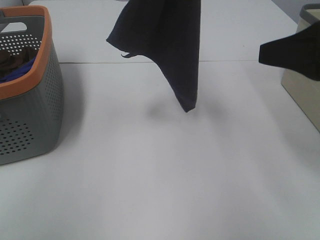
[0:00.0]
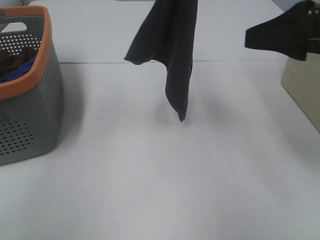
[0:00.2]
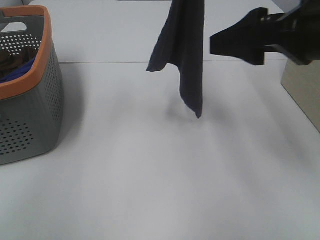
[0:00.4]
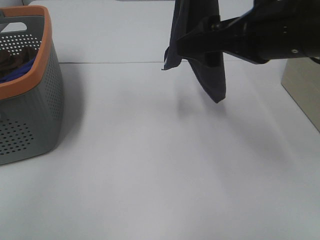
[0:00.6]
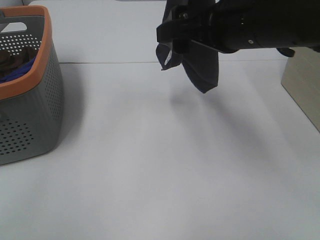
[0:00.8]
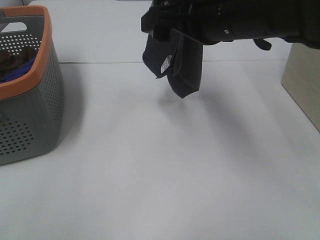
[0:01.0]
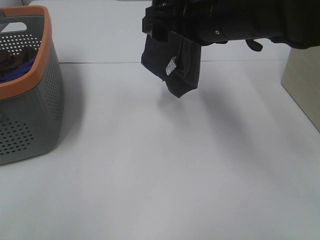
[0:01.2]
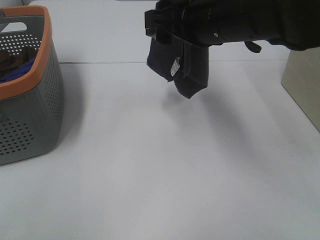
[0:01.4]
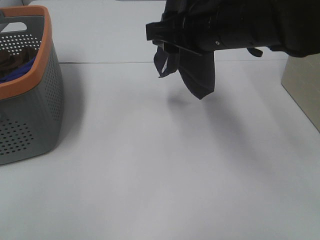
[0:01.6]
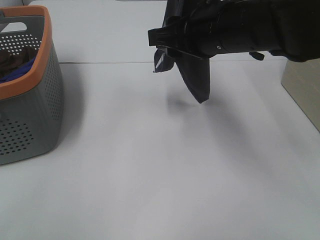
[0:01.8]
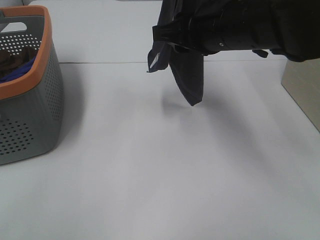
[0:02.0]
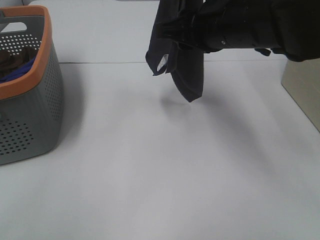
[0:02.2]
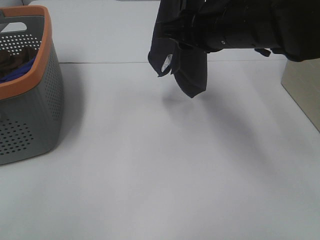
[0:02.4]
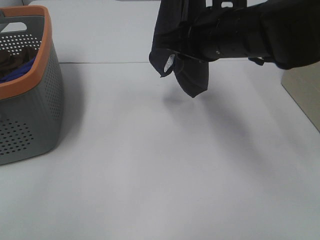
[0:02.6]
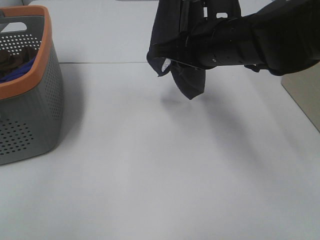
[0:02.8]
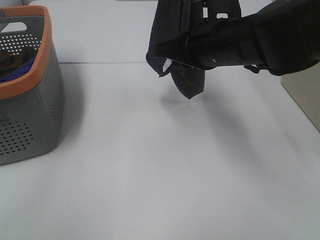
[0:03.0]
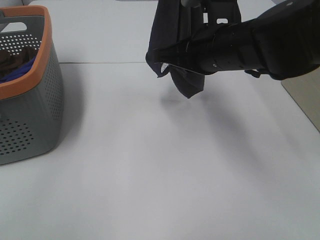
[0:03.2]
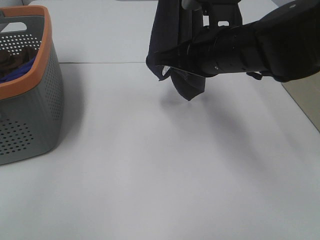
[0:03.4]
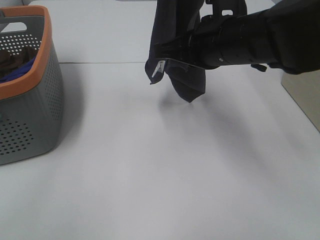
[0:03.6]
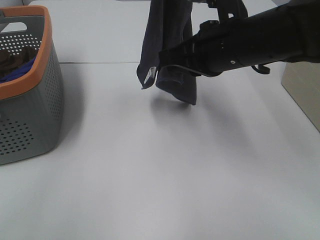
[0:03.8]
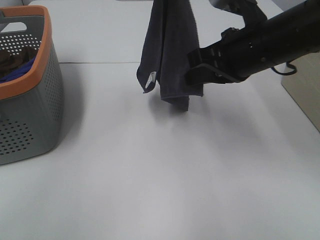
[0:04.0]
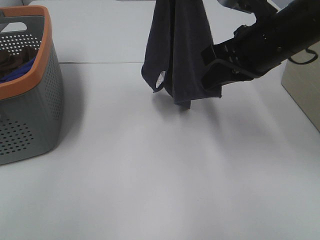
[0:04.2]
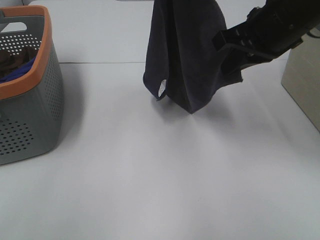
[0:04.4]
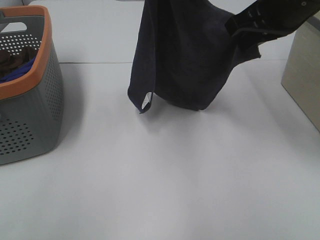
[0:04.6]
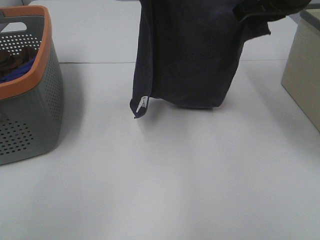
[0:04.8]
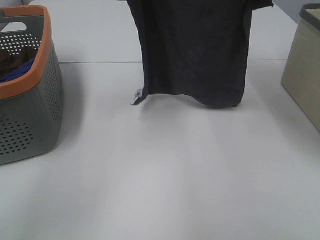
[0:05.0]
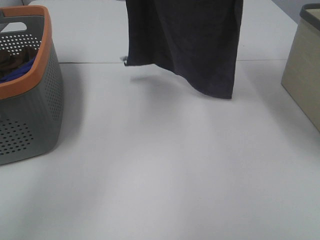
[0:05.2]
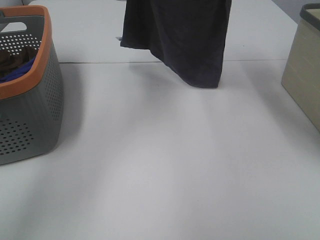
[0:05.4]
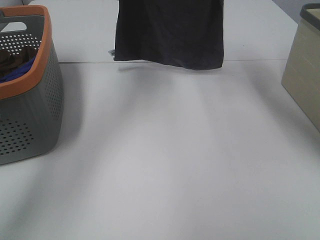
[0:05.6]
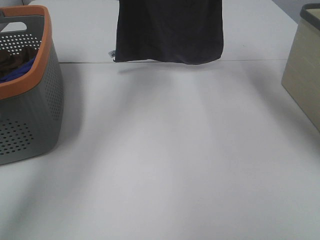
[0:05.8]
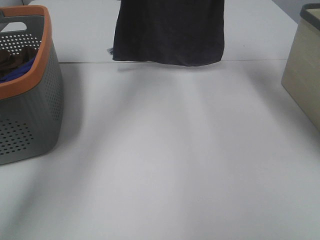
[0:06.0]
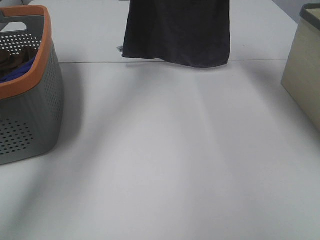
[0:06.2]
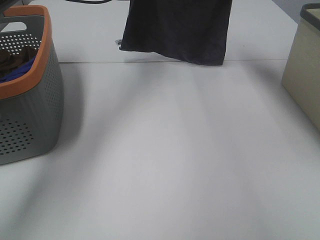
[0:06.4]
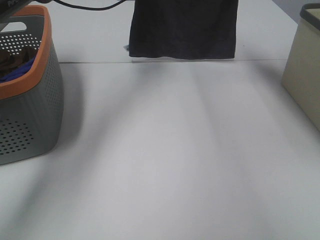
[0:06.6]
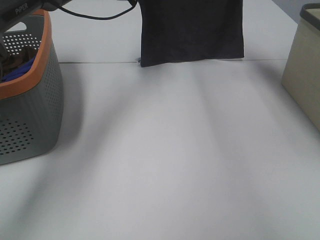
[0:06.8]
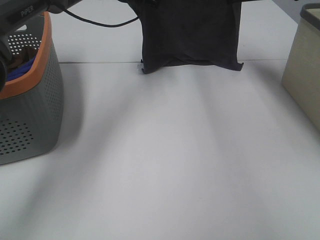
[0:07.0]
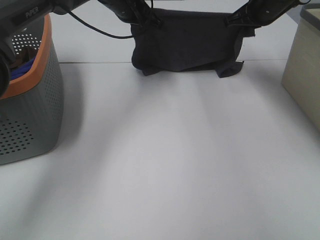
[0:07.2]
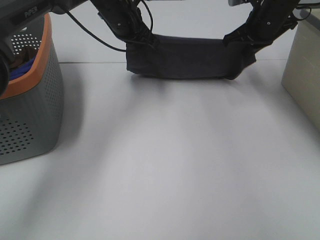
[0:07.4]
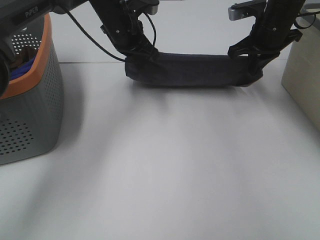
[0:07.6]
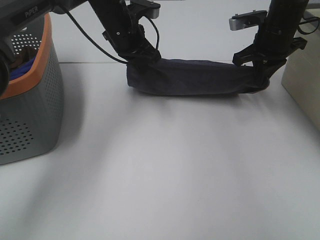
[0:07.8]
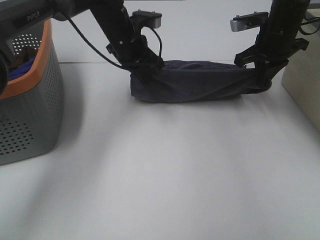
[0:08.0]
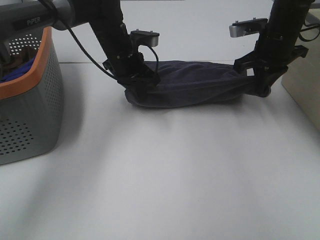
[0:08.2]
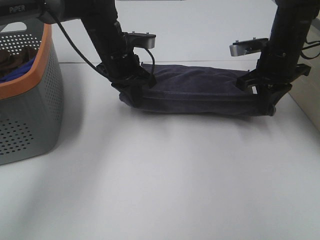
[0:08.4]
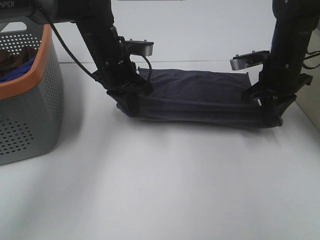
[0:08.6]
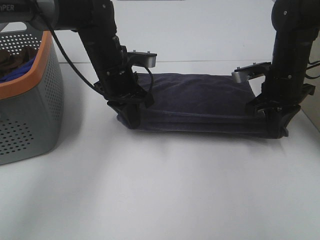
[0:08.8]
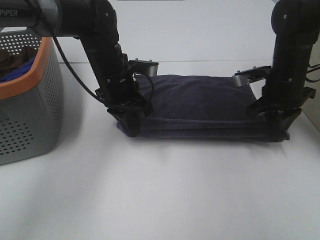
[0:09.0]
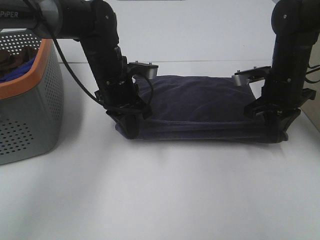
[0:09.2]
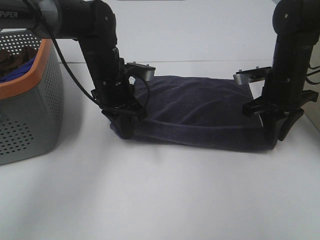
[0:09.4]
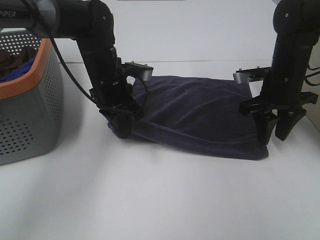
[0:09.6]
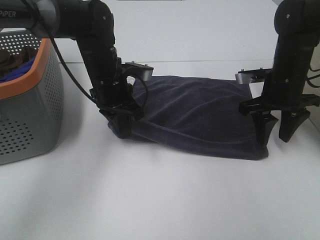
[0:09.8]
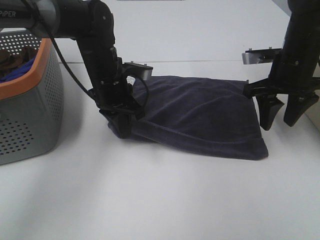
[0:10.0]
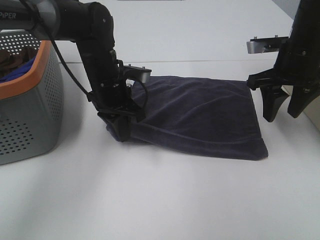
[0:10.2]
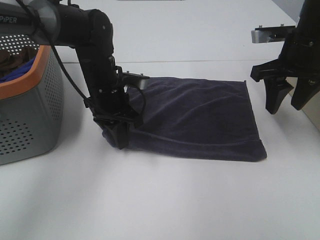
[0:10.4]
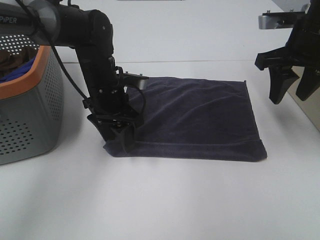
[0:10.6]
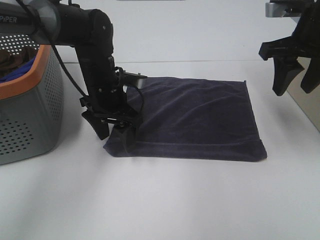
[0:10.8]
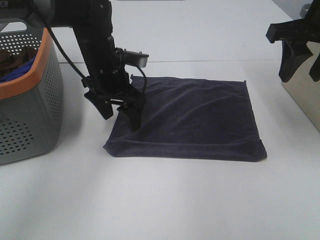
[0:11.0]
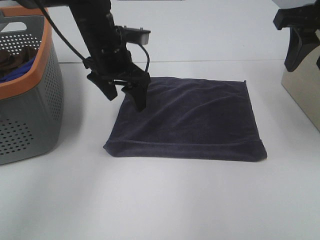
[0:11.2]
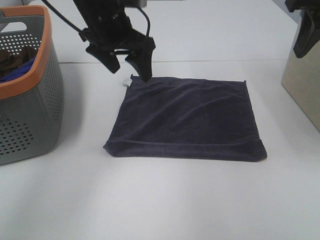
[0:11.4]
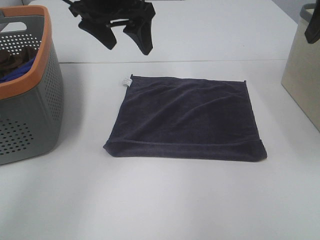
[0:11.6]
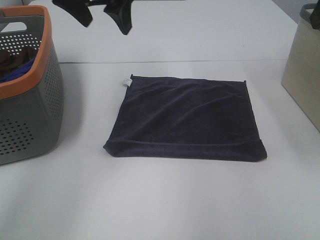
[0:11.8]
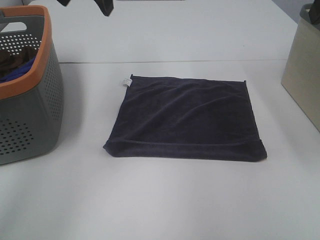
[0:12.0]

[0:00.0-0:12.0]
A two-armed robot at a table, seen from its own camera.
Task of the whole recording: Remove the towel and place it.
Step, 0.0 to 2.2 s: Right hand: grab a corner of the grey towel and straighten it.
Step, 2.4 to 5.4 s: Right hand: spread the grey towel flat on the table.
Step, 2.4 to 6.0 s: Left hand: spread the grey towel flat on the table.
0.0 to 1.6 s: The right gripper moves to the left and forward, about 20 cm, and closes up.
1.6 to 3.0 s: The right gripper closes up.
3.0 to 4.4 s: The right gripper moves to the right, about 5 cm.
4.4 to 6.0 s: The right gripper shifts roughly 15 cm forward. Meanwhile the left gripper is displaced forward, downward and to the left by approximately 20 cm.
6.0 to 7.6 s: Both grippers move downward, some 10 cm.
7.6 to 9.0 s: Both grippers travel together backward and downward, roughly 10 cm.
9.0 to 10.4 s: The right gripper moves upward, about 10 cm, and opens its fingers.
10.4 to 12.0 s: The right gripper travels upward and backward by some 20 cm, and opens. Meanwhile the left gripper moves upward, roughly 25 cm, and opens up.

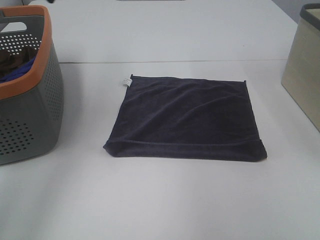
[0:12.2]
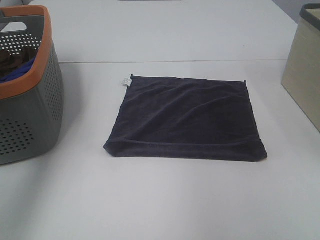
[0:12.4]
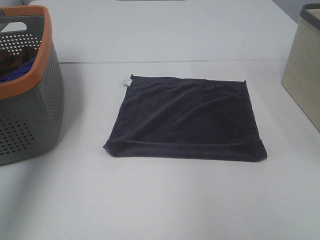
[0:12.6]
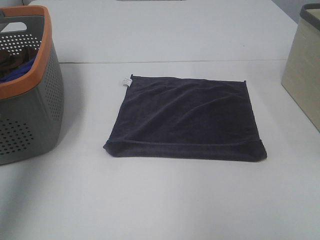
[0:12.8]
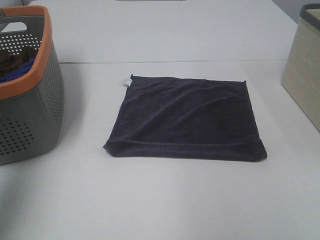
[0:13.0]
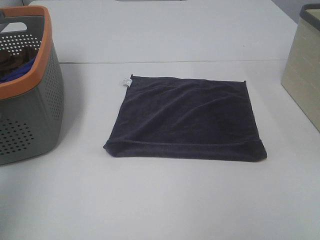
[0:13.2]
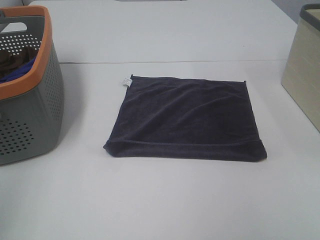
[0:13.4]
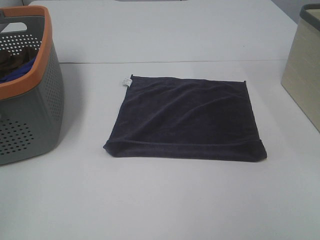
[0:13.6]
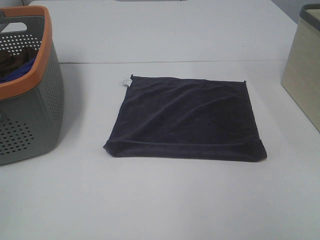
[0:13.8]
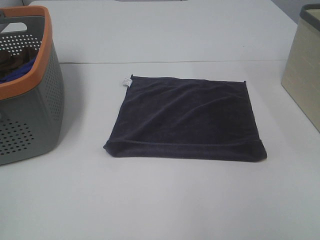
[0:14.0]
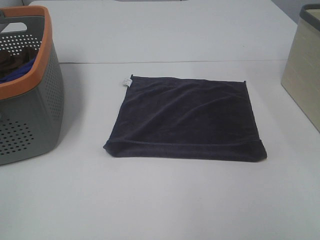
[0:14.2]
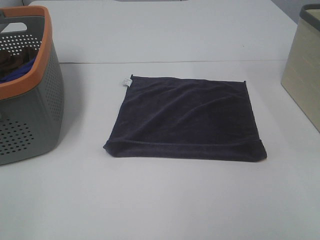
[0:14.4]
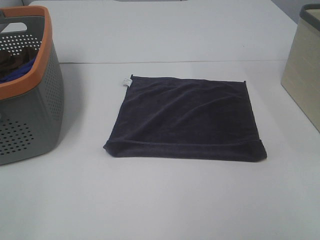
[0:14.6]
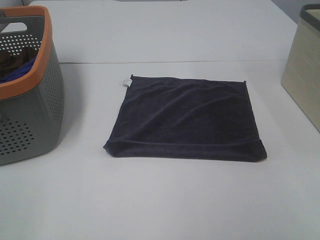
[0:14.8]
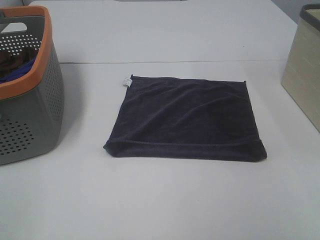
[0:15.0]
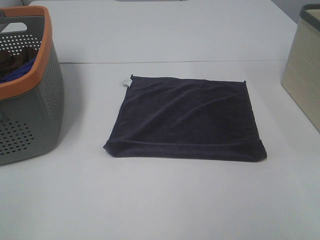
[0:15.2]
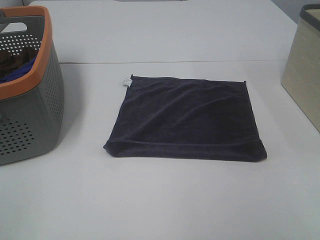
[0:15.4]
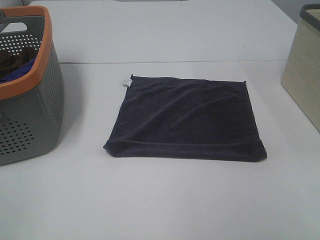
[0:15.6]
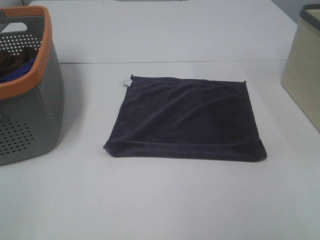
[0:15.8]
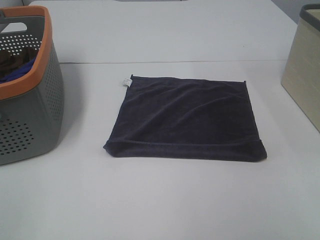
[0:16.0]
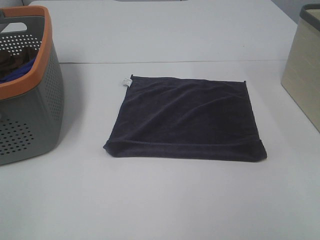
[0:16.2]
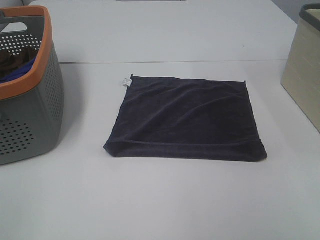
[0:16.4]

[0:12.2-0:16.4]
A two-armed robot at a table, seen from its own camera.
Task of the whole recording: Remove the towel and place it.
12.2 to 13.6 s: The left gripper shifts some 35 cm backward.

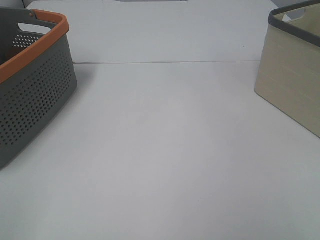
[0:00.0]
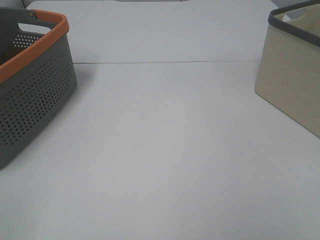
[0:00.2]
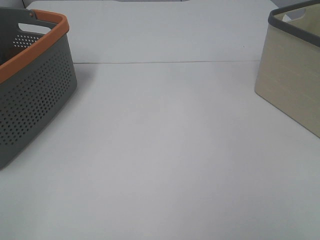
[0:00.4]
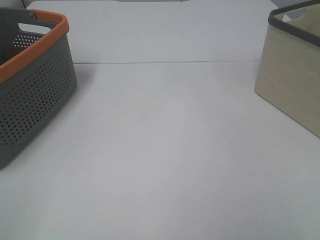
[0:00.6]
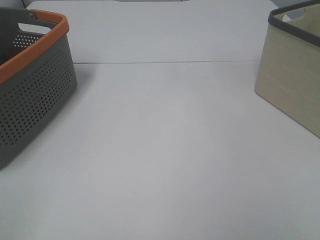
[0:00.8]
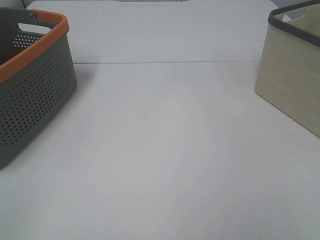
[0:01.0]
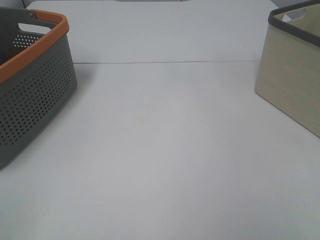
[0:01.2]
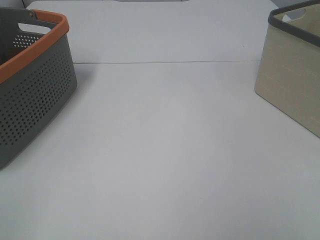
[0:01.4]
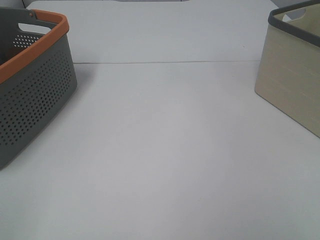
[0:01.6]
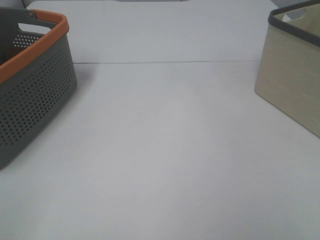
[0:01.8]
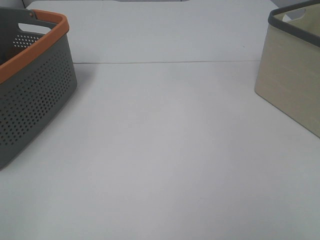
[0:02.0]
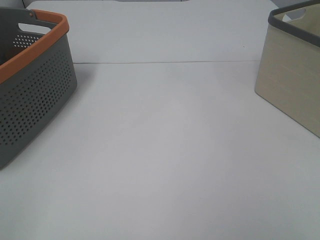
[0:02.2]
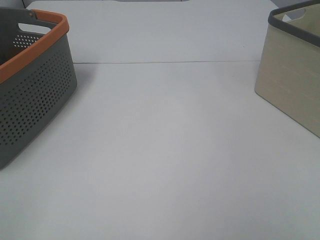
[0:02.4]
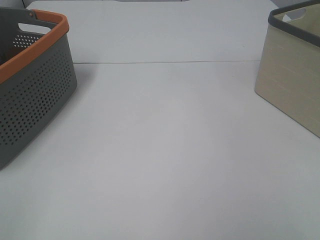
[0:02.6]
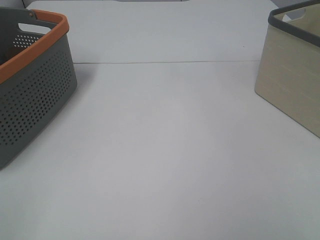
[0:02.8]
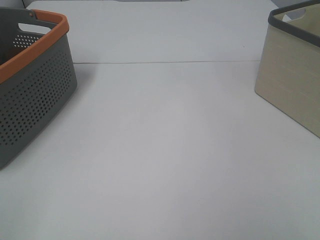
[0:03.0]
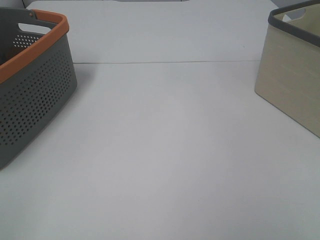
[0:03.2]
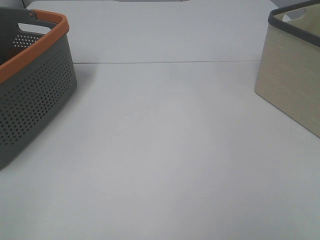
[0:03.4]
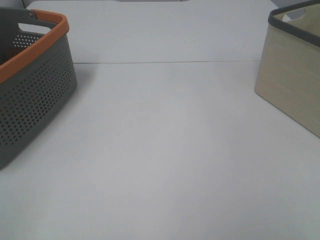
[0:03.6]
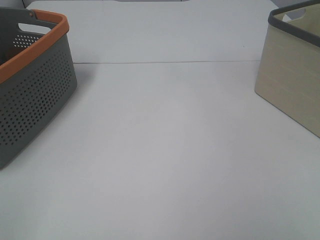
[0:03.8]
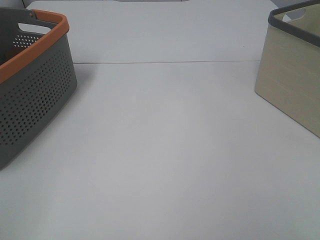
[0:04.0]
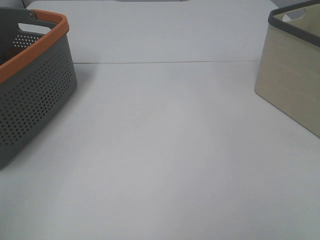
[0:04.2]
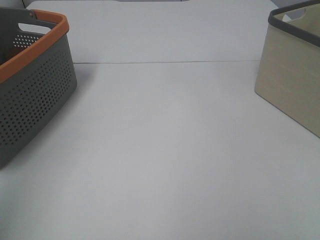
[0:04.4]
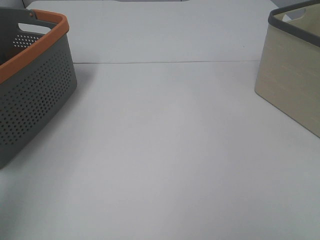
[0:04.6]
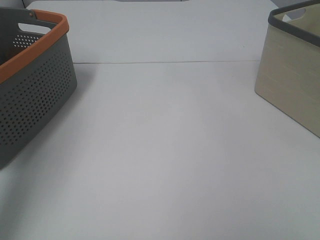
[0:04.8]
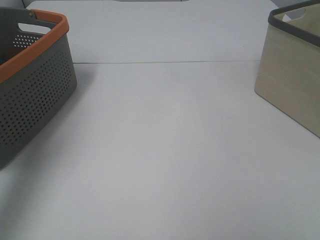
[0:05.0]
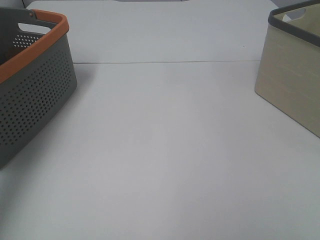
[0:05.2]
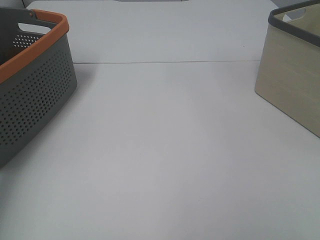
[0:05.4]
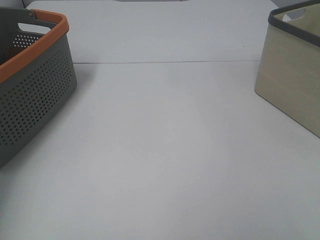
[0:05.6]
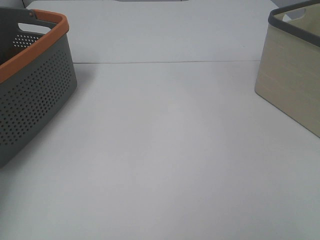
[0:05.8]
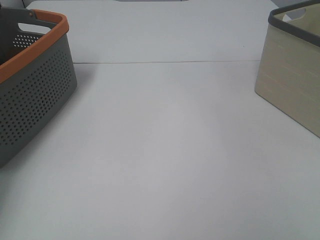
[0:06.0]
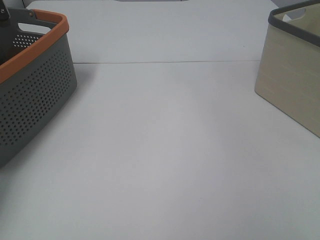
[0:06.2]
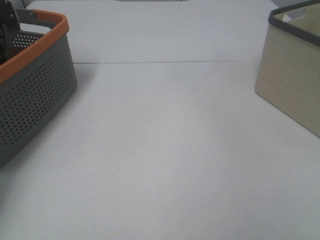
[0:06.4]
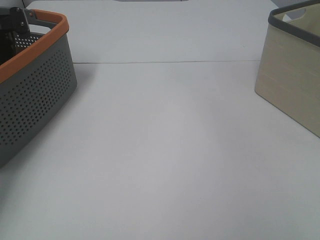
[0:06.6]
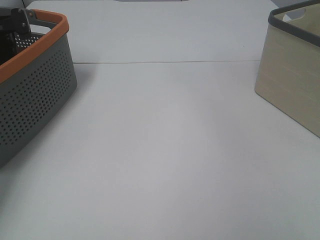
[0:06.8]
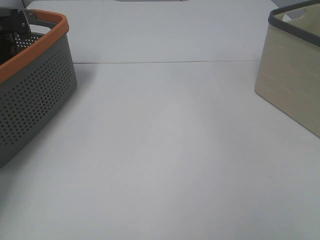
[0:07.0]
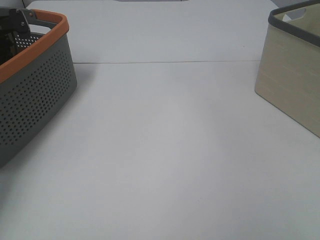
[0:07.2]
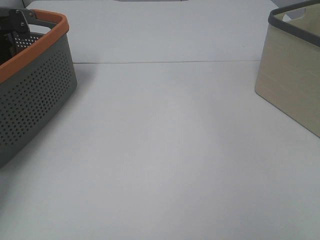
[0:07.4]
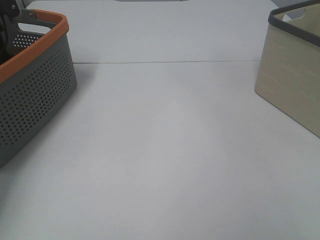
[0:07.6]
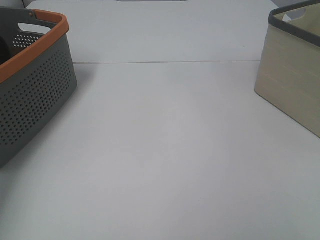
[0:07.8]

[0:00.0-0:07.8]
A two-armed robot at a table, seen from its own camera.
Task of the whole recording: Remove the towel and place it.
0.0 to 3.2 s: The two grippers keep their place.
3.2 to 4.6 s: The left gripper goes about 25 cm upward and forward.
4.6 to 6.2 s: The left gripper shifts about 40 cm forward and downward.
